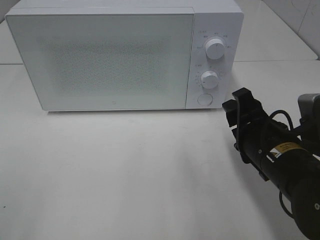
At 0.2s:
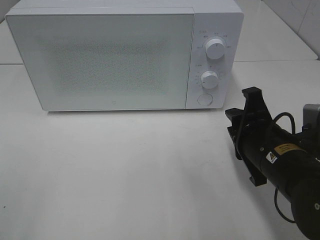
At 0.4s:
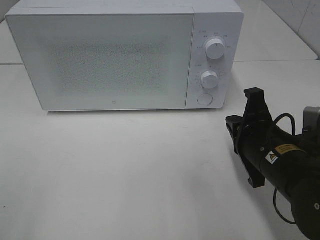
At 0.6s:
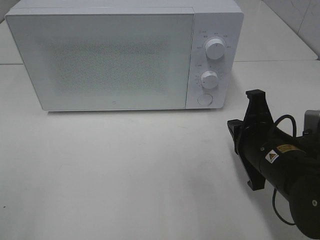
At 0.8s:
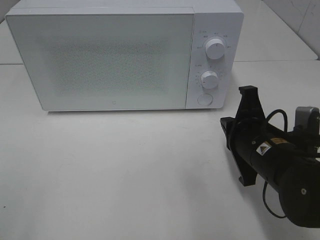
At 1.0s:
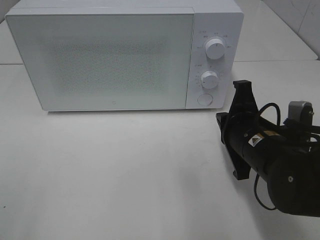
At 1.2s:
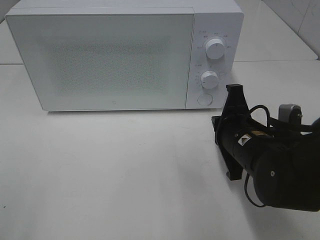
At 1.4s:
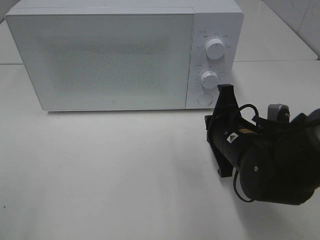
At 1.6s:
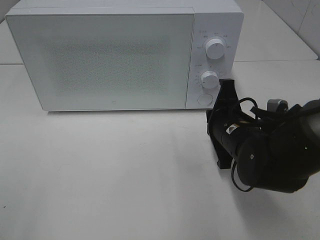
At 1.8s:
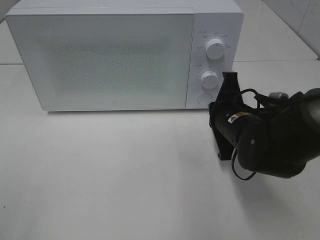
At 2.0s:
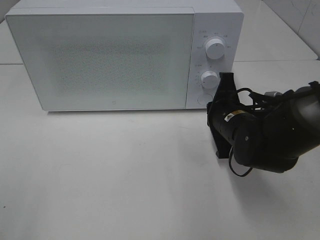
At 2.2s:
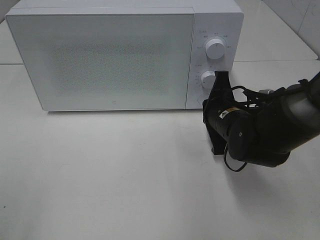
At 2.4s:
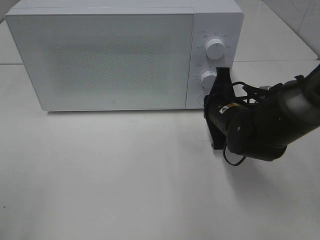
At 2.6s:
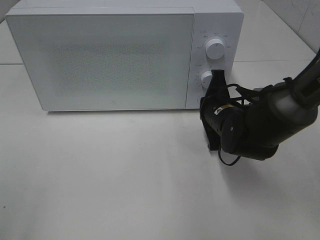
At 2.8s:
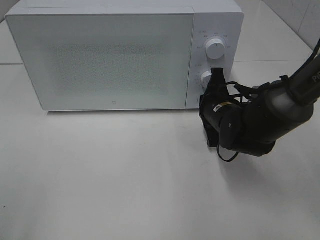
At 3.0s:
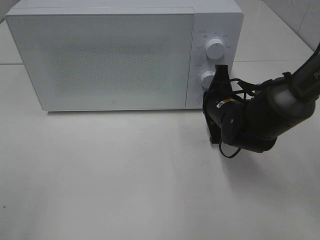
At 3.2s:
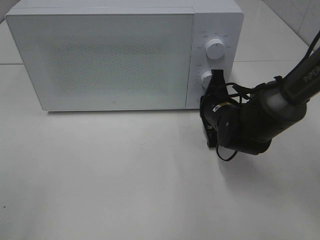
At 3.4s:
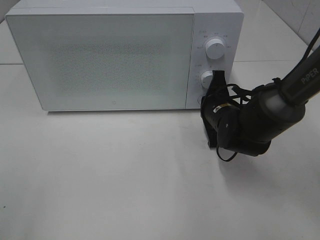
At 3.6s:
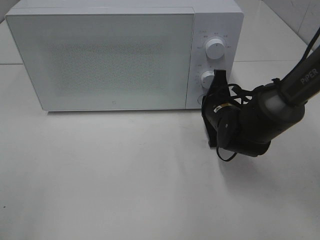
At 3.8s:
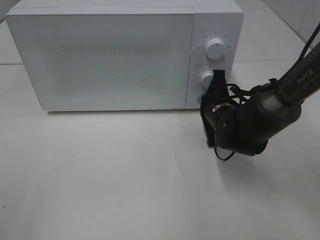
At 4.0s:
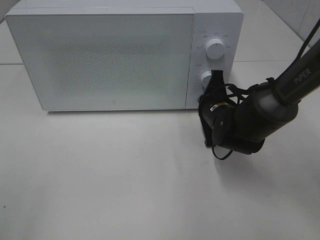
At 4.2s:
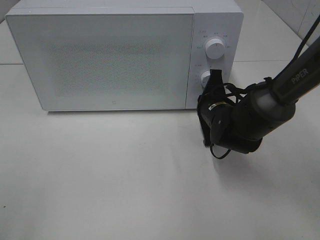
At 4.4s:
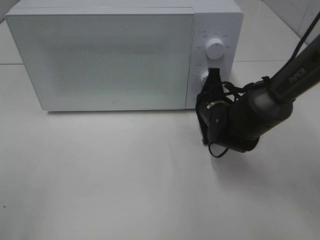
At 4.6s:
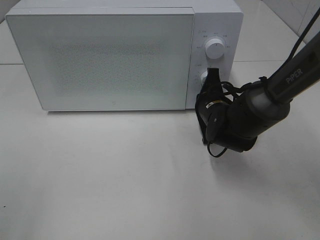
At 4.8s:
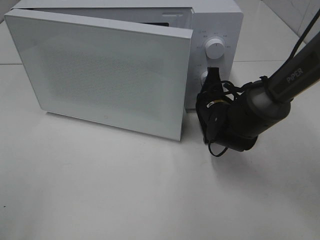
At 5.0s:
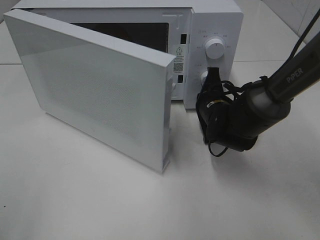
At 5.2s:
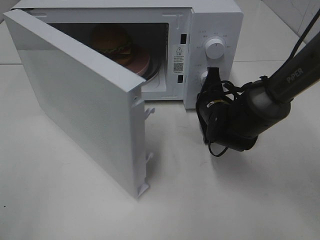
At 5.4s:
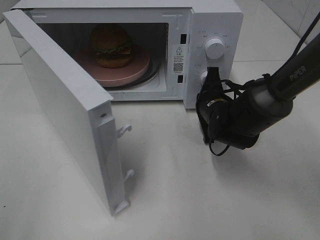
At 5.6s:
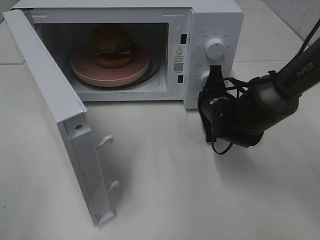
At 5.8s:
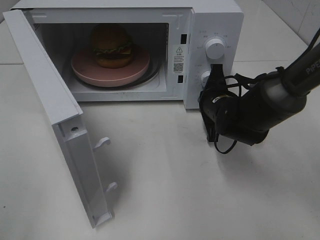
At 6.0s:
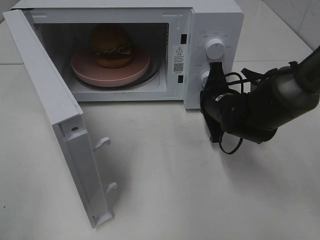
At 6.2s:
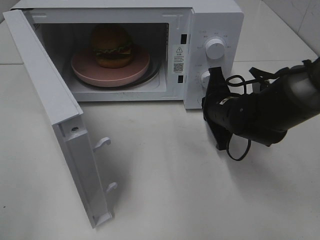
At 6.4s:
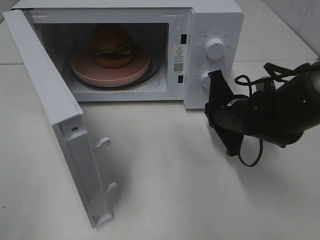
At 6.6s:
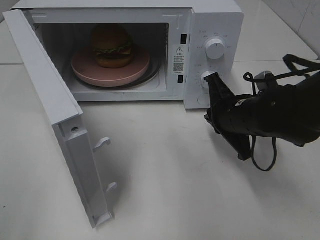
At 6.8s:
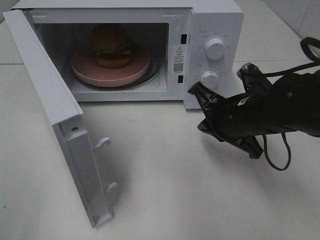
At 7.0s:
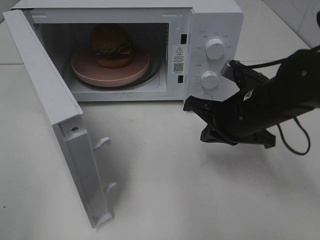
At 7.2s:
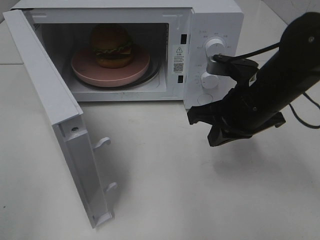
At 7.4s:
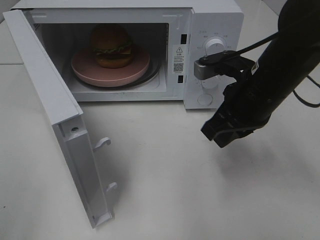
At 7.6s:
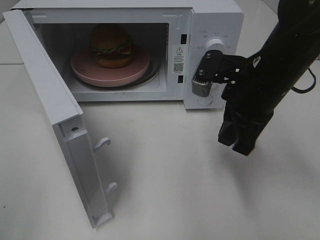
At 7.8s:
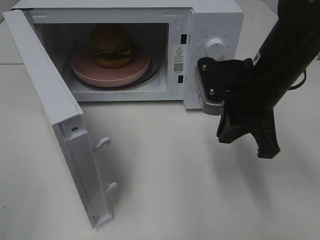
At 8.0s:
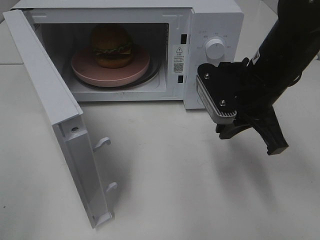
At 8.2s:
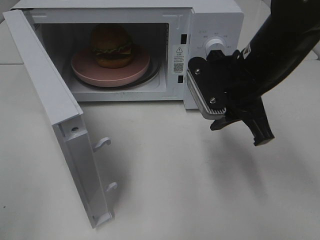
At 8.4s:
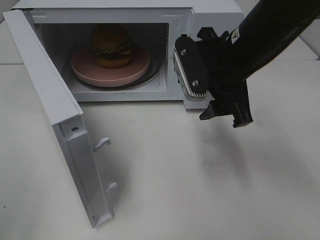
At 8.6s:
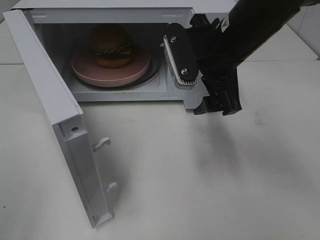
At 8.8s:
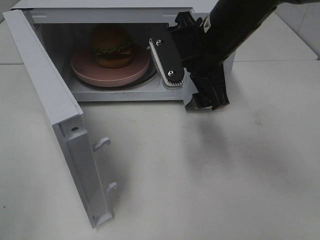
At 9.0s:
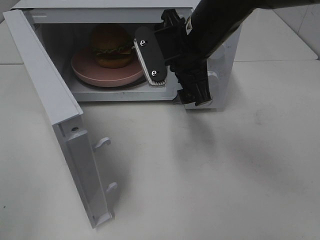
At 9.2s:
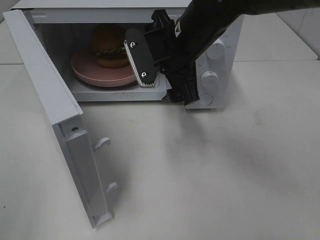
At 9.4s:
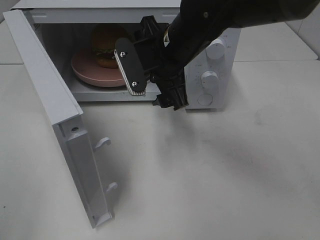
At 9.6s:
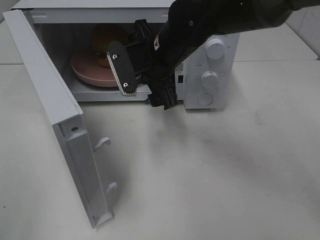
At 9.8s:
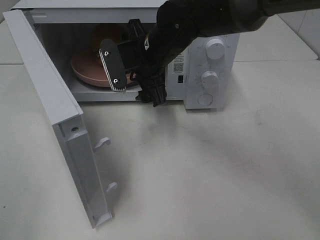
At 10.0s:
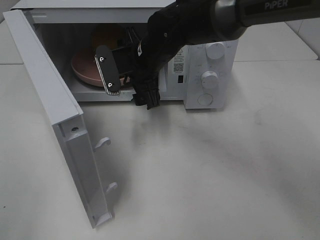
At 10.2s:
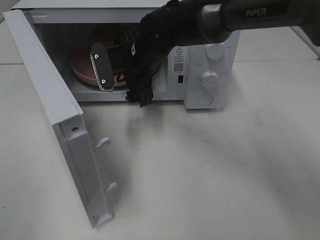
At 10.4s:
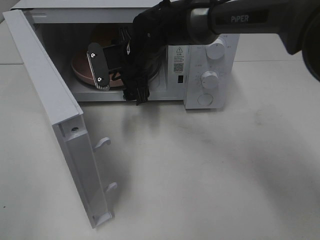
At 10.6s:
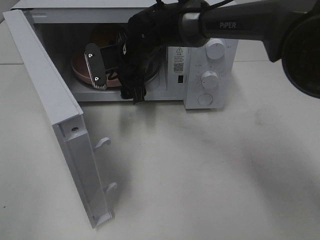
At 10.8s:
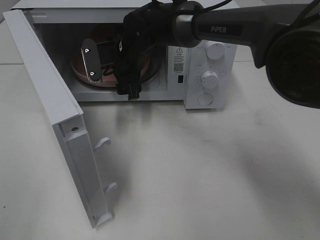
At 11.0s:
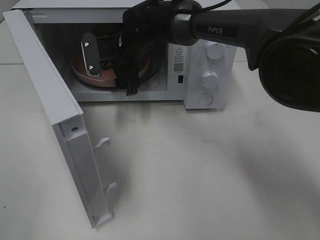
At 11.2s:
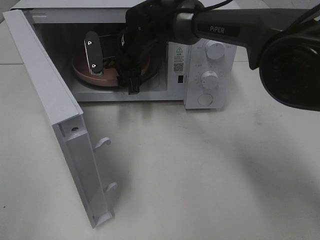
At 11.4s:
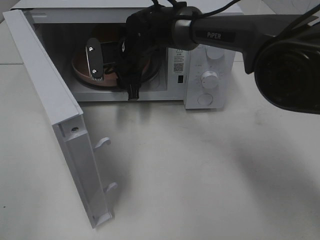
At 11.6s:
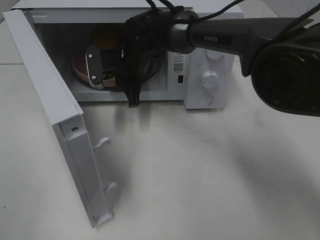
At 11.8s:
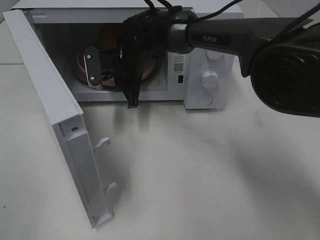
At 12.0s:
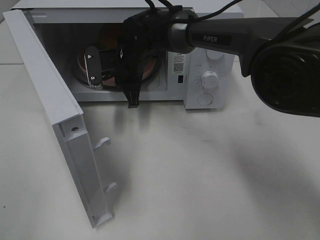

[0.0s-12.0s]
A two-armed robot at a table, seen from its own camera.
Task of the whole recording: Heat the burger.
Step, 0.0s to 6.4s: Right hand: press the switch.
0.0s to 1.6s: The right gripper heads forward, covering about 5 cm, and closes its fingers.
1.6s to 3.0s: The right gripper shifts roughly 5 cm forward.
3.0s to 4.4s: The grippers move only a little.
6.0s to 7.6s: The right gripper travels upward and backward by approximately 15 cm.
7.6s to 9.0s: The right gripper shifts approximately 10 cm to the left and forward, and opens.
9.0s to 10.4s: The right gripper travels to the left, forward and downward by some 15 cm.
10.4s to 12.0s: The right gripper closes its fingers.

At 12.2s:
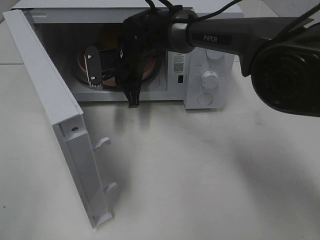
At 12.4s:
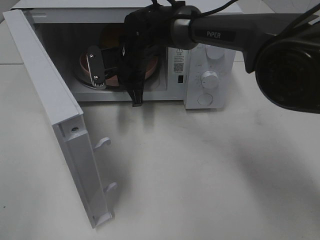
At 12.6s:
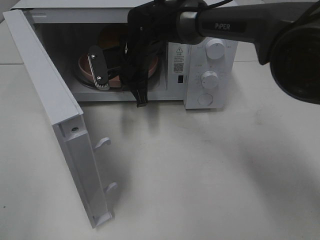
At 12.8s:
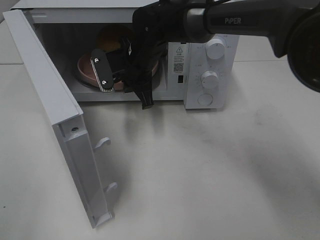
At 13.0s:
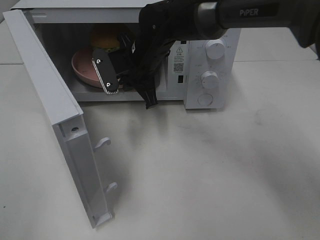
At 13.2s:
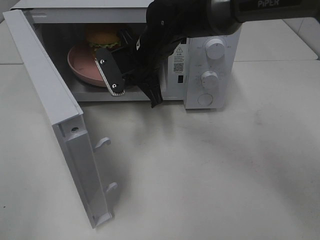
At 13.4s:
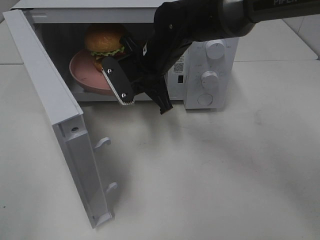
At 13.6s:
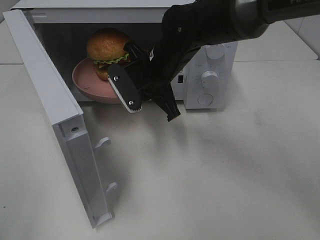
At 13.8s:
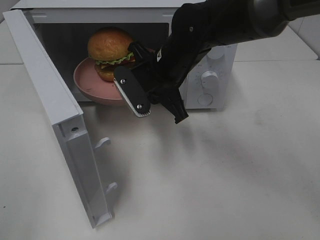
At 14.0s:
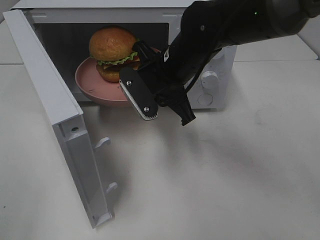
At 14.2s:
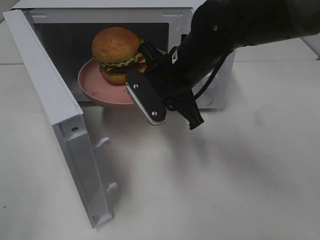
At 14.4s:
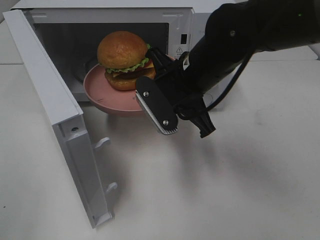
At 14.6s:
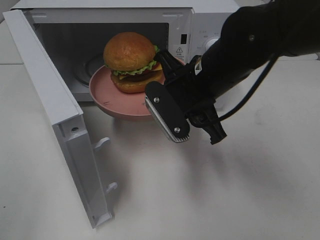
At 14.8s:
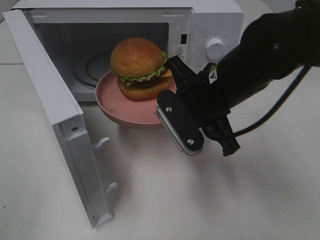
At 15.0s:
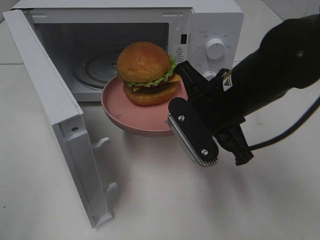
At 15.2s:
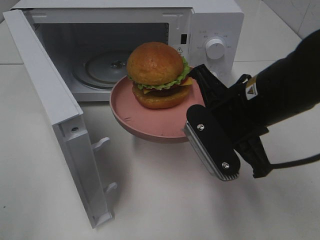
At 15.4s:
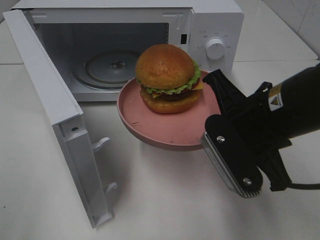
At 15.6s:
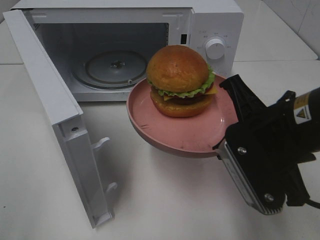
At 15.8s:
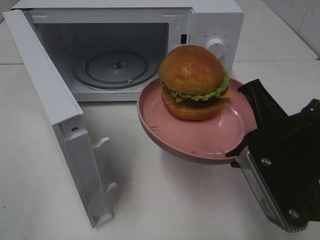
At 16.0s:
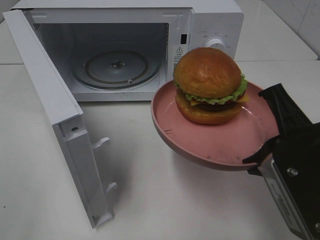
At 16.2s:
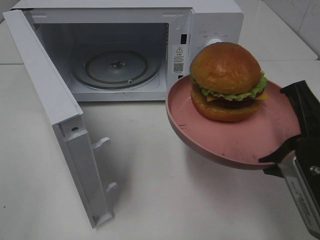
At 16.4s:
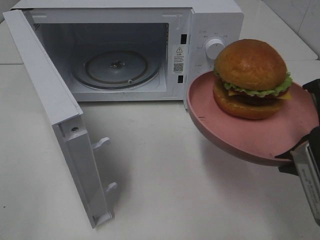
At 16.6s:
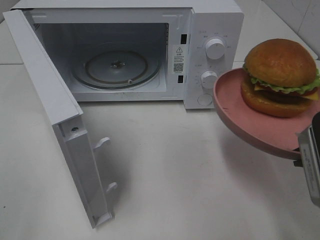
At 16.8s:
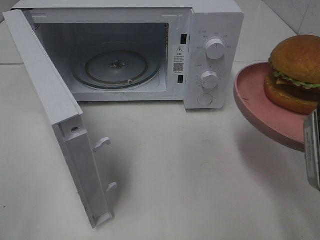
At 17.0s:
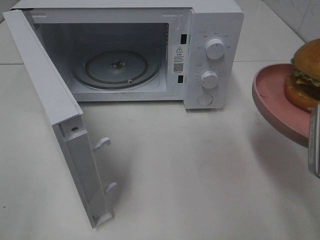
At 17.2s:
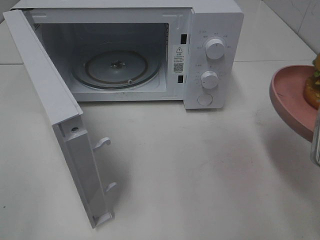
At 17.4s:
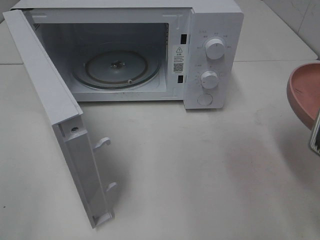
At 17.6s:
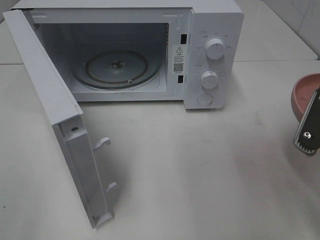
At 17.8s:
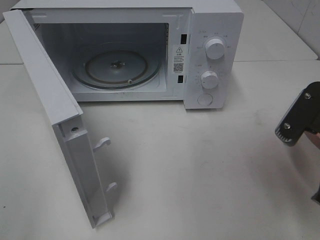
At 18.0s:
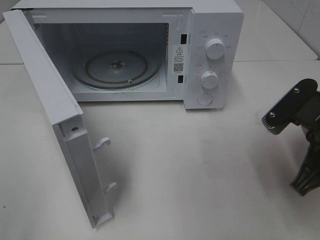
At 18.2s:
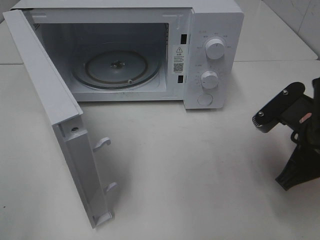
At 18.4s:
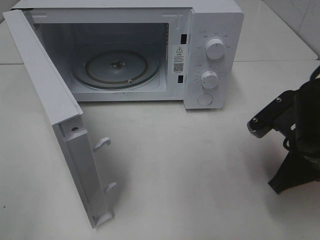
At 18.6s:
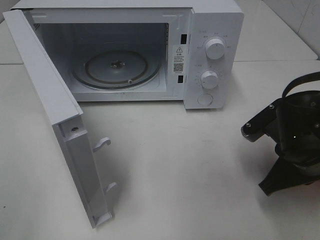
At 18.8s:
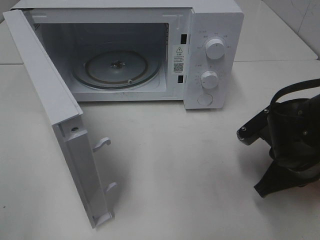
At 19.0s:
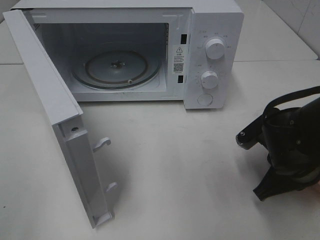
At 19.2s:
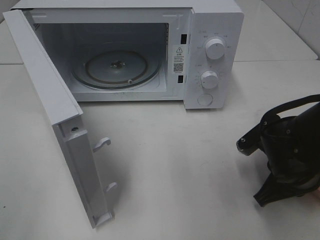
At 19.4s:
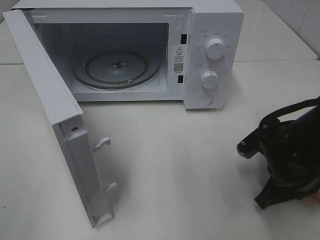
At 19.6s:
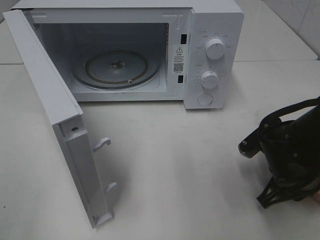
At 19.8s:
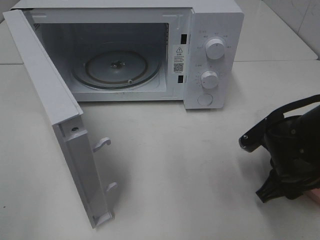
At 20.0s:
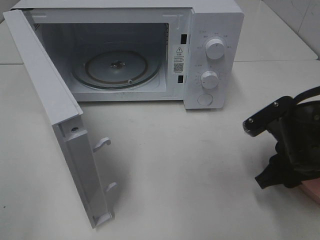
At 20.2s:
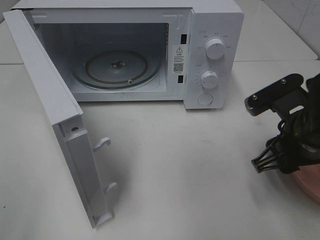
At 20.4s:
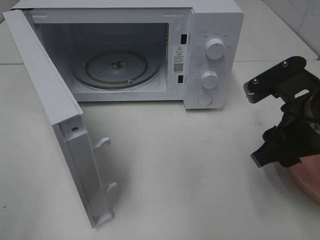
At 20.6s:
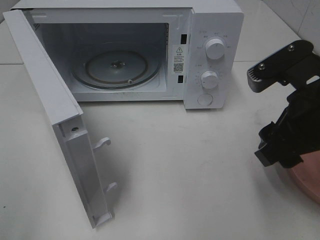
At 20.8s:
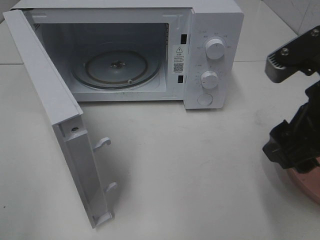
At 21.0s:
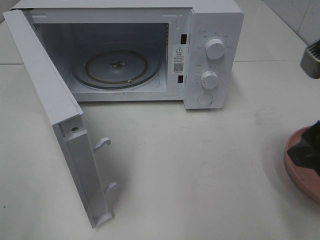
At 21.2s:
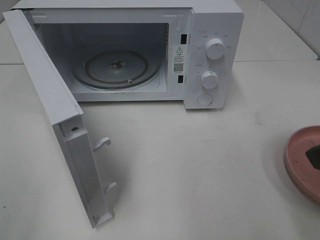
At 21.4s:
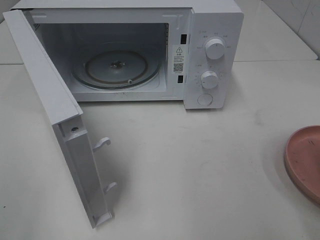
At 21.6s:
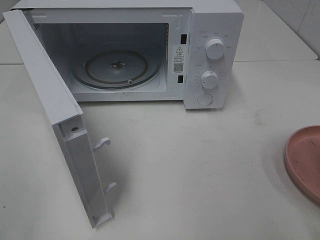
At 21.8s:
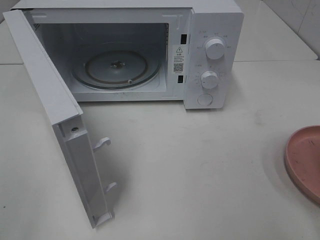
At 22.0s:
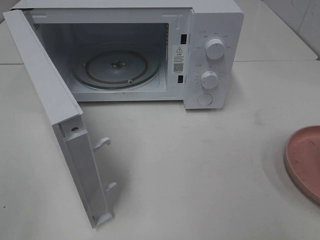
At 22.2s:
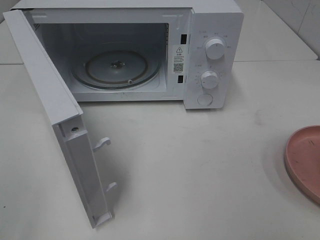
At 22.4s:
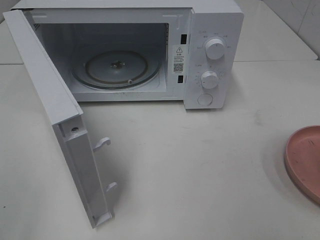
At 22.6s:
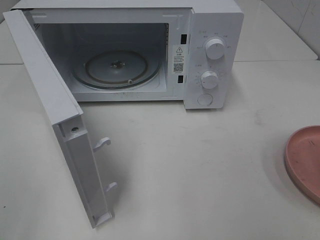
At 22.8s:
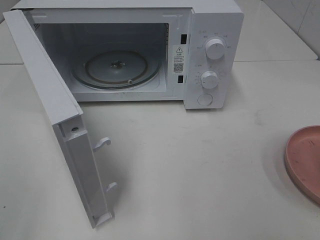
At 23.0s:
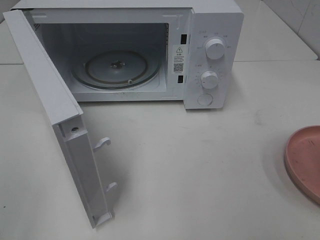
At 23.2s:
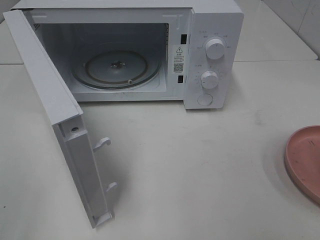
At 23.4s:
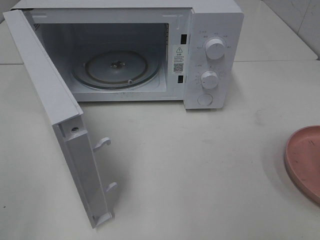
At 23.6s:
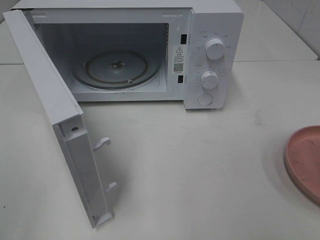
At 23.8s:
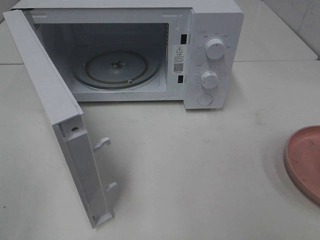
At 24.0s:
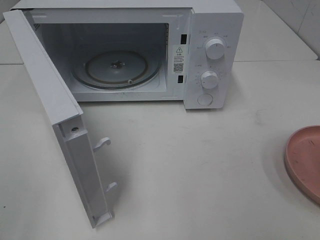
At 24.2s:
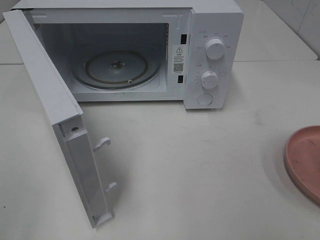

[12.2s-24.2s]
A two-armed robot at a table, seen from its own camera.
Task of the whole recording: Heat the burger.
Step, 12.4s to 19.8s: Right hand: place the plate on the table.
12.2s to 13.8s: The right gripper travels backward and to the right by approximately 10 cm.
13.8s to 15.2s: The right gripper travels backward and to the right by roughly 15 cm.
15.2s to 16.6s: The right gripper shifts some 15 cm to the right and backward.
16.6s to 18.2s: The right gripper travels downward and forward by approximately 10 cm.
18.2s to 19.8s: The right gripper travels downward by some 5 cm, and opens up.
19.8s to 21.2s: The right gripper heads upward and backward, covering roughly 20 cm.
21.2s to 22.6s: The right gripper shifts some 15 cm backward and to the right.
22.6s to 24.2s: Both grippers stay about where they are.
